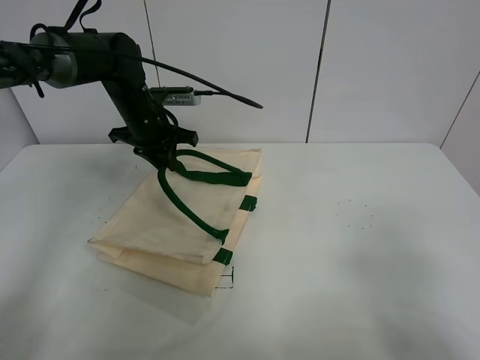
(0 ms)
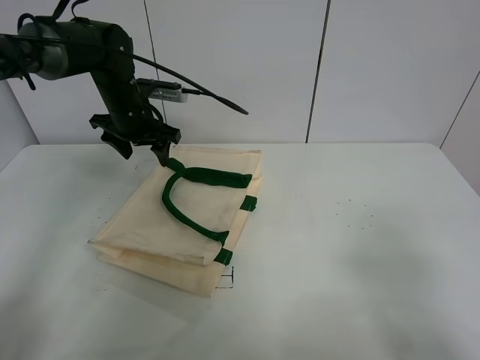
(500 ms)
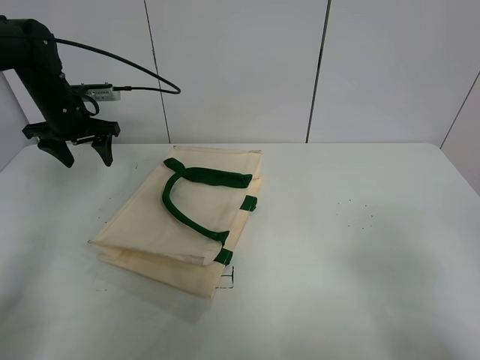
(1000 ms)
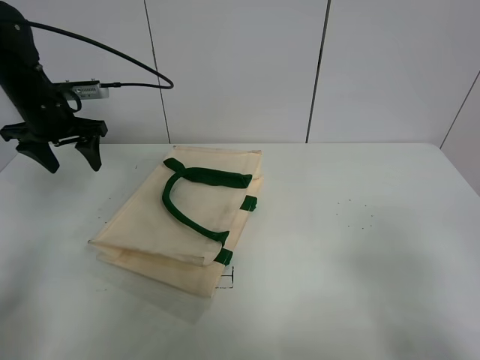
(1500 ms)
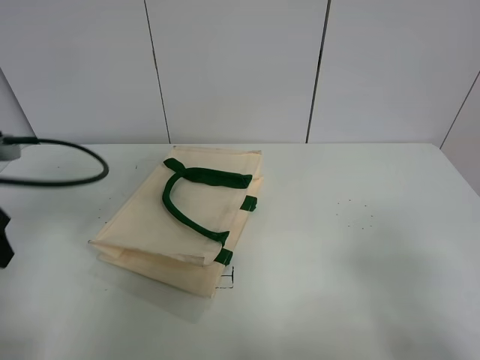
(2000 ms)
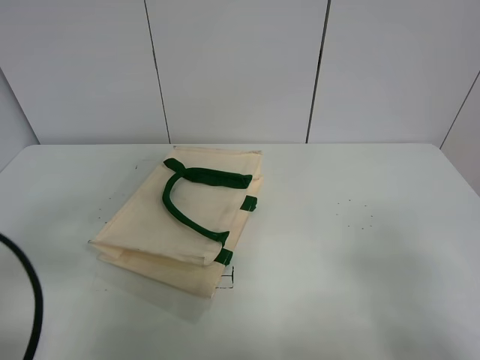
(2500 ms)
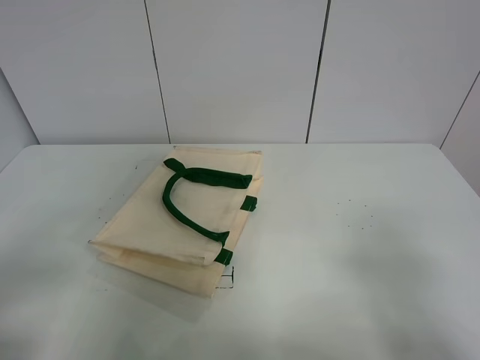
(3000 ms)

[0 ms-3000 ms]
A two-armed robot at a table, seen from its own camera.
Task of the whole recording: open the white linen bag and put the peach in the bag.
0 ms to 1500 ms: The left gripper heads to the left, covering some 15 cm, and opens up.
1500 ms to 3000 ms: The left gripper is displaced backward by some 40 cm.
